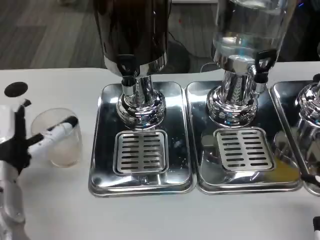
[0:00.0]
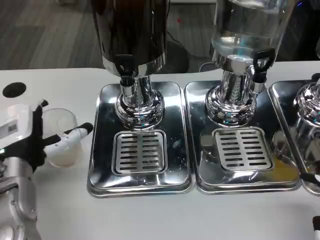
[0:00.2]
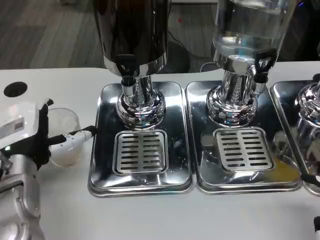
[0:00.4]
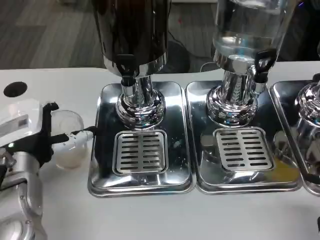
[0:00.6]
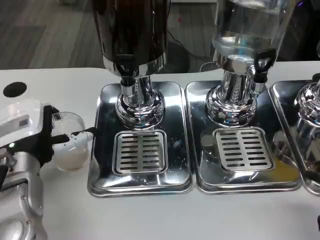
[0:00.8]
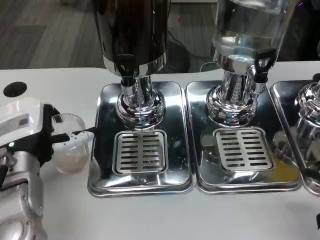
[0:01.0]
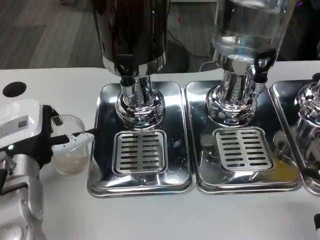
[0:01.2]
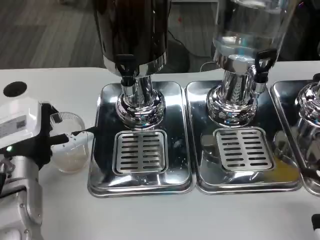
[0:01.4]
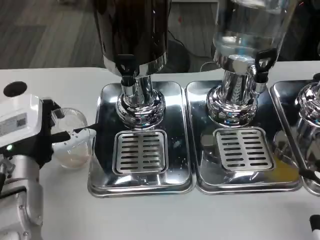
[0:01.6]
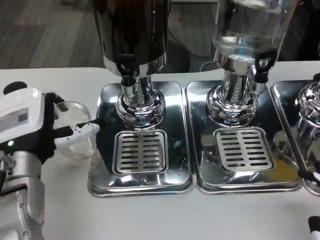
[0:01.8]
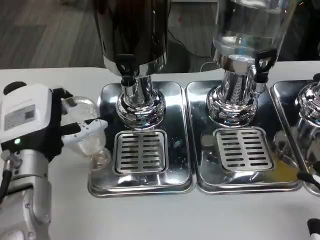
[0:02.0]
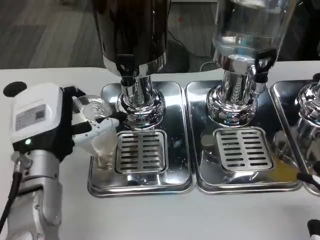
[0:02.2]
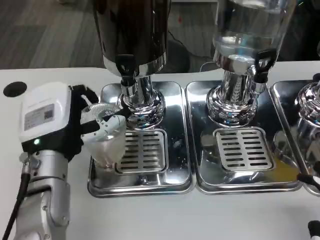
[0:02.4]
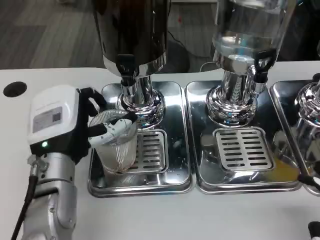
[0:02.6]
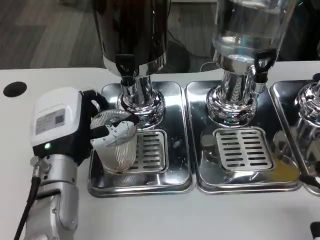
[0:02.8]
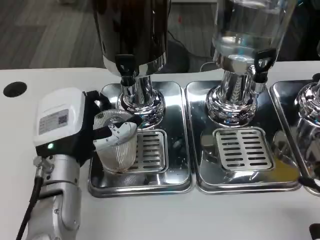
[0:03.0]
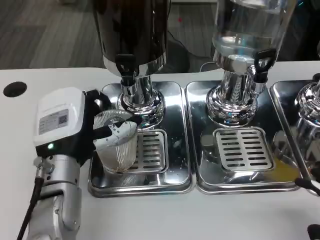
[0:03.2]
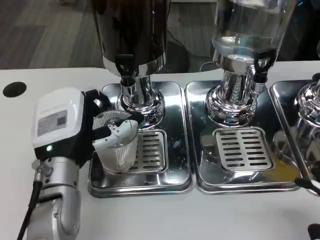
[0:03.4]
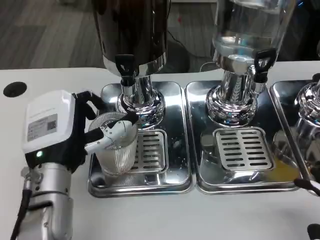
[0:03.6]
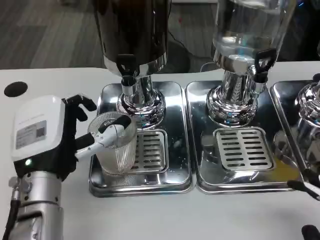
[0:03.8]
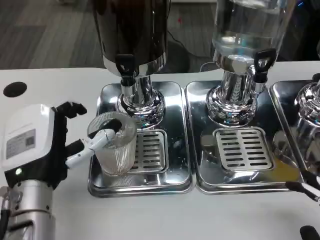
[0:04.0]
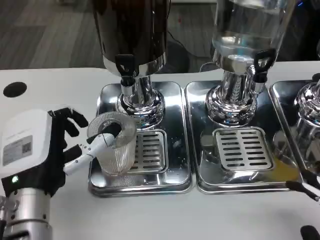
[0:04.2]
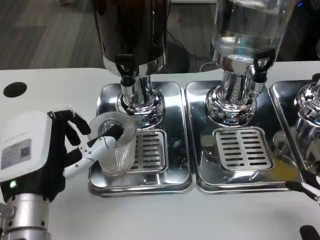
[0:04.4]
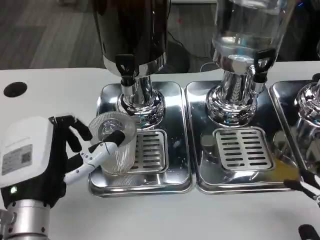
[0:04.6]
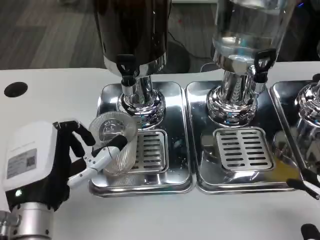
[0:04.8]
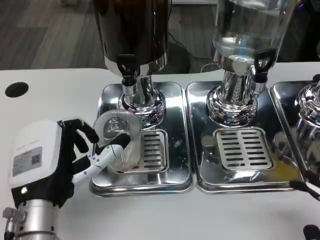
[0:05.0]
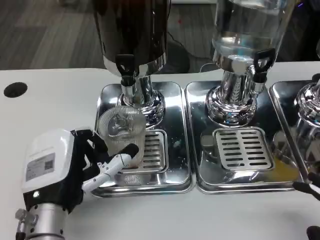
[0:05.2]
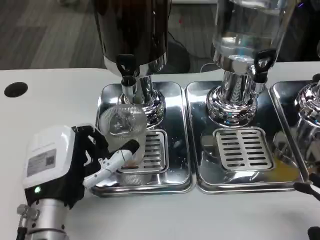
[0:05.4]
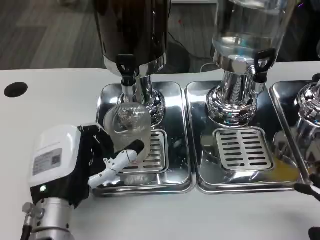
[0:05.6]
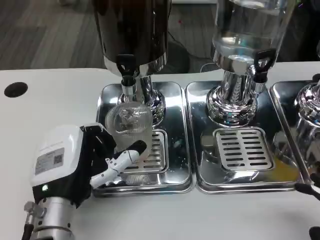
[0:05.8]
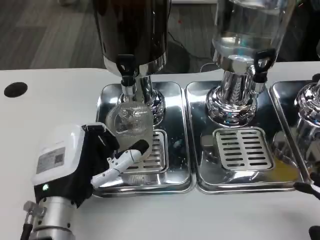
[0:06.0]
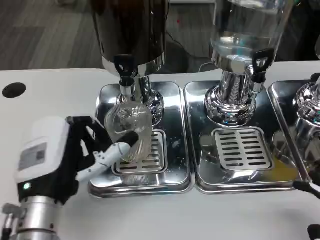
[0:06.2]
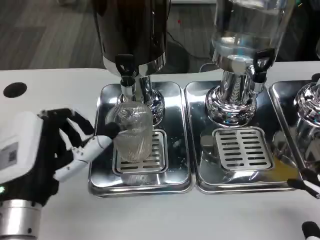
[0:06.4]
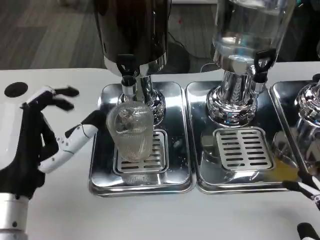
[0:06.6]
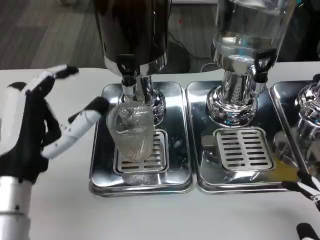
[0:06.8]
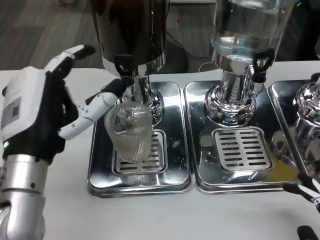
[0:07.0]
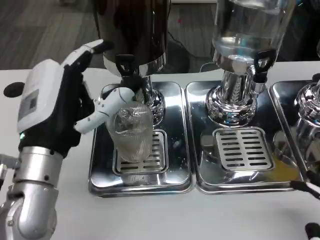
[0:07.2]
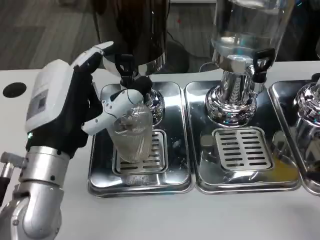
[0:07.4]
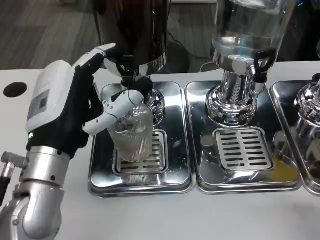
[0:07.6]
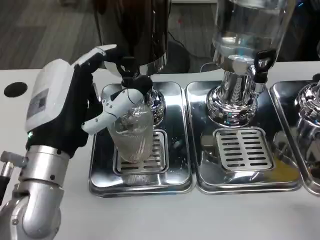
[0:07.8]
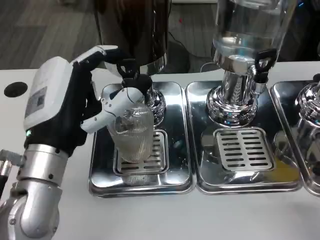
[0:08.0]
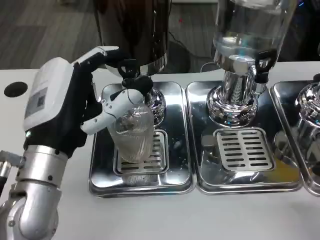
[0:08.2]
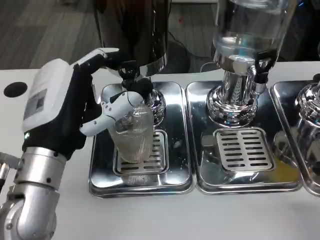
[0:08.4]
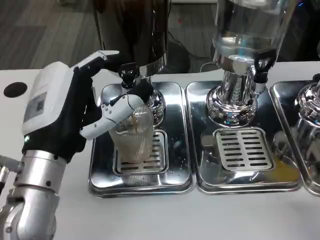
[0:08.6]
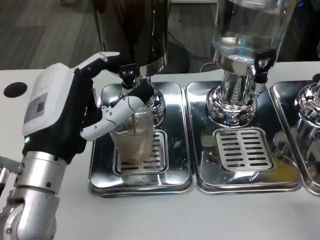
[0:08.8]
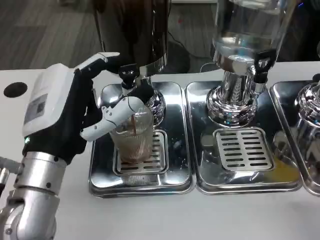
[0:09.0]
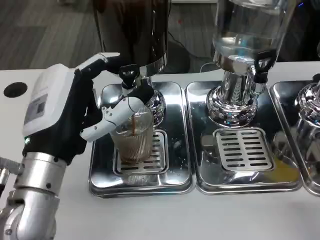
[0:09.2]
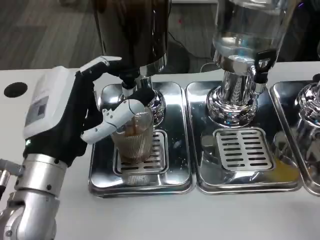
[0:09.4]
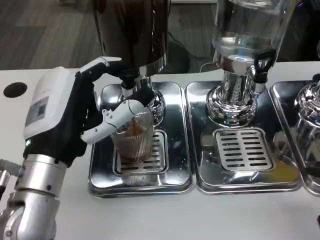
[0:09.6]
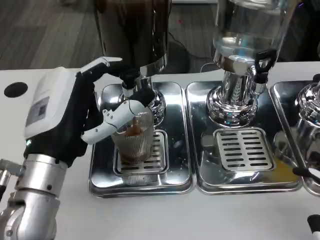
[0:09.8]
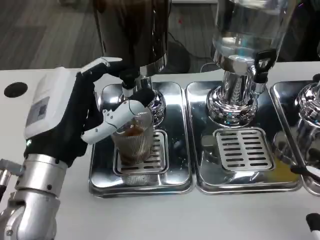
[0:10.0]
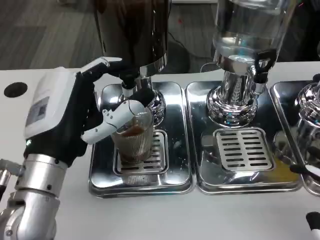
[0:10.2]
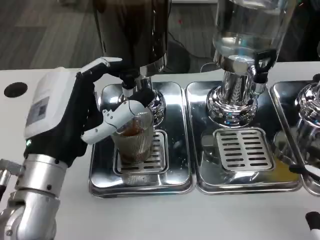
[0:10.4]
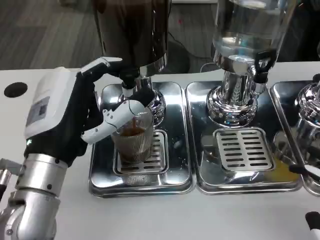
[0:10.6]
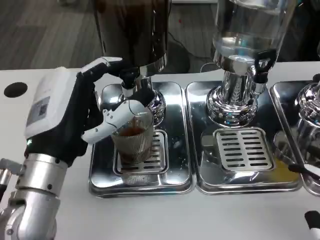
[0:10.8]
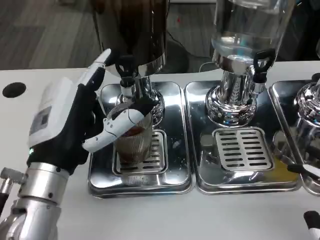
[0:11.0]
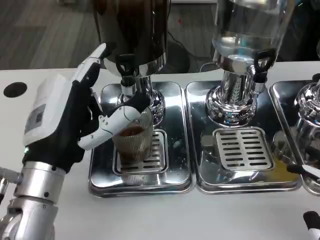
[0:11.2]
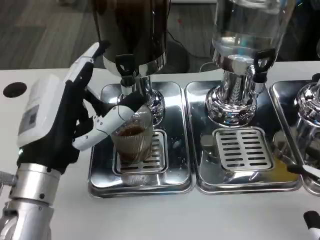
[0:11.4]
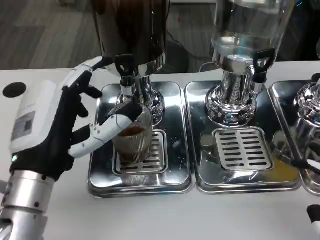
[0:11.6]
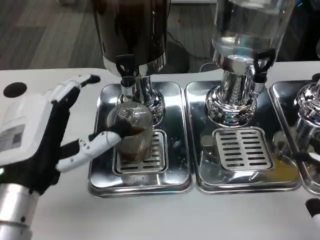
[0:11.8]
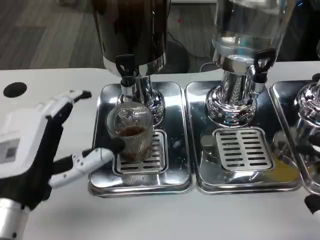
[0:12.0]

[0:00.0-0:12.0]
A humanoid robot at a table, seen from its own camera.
Task of the whole recording: Grasp the cup under the faucet to collect the drink, then remove the cup.
0:00.0 to 0:01.6: There are only small adjustments of the hands.
0:03.0 to 0:04.4: The left hand goes roughly 5 cm backward.
0:04.4 to 0:06.0: There are only small adjustments of the hands.
0:06.0 to 0:07.6: The left hand travels upward by approximately 5 cm.
0:07.6 to 0:09.0: Both hands stay about where they are.
0:10.4 to 0:12.0: The left hand shifts by about 5 cm.

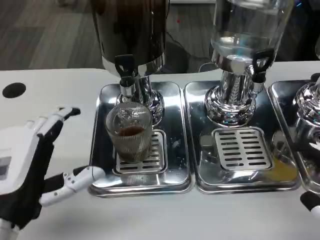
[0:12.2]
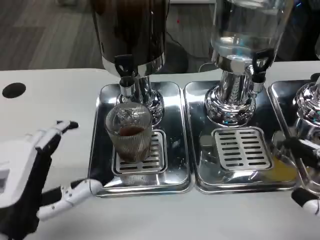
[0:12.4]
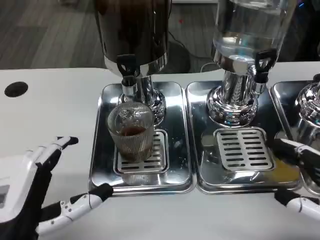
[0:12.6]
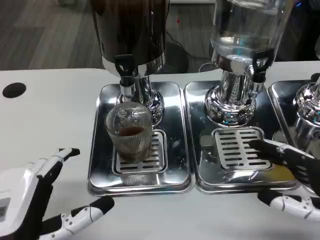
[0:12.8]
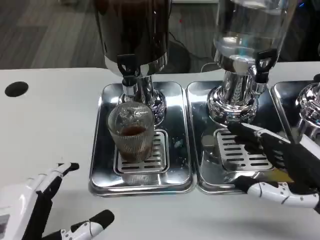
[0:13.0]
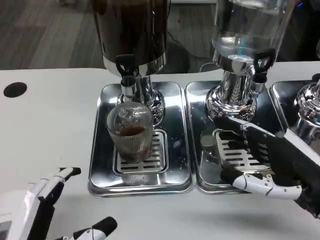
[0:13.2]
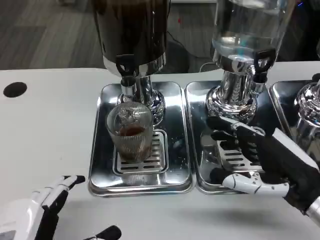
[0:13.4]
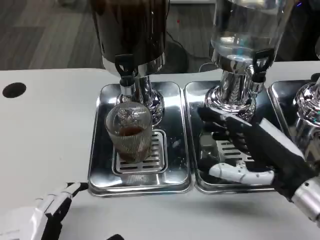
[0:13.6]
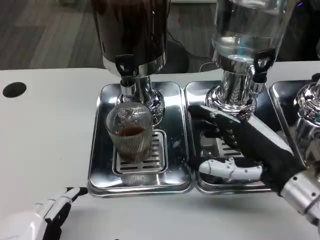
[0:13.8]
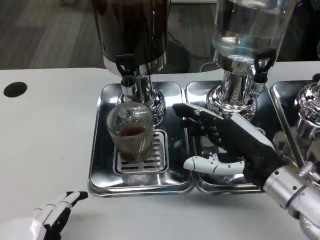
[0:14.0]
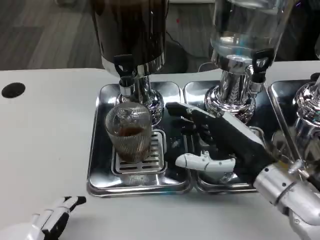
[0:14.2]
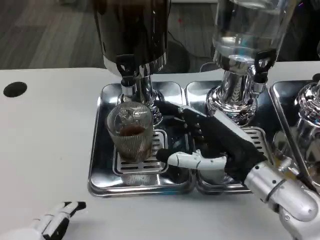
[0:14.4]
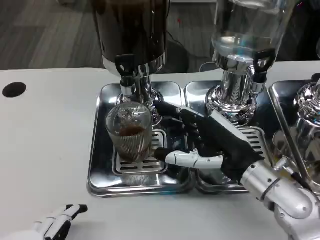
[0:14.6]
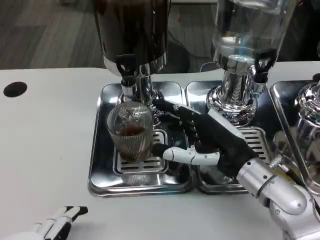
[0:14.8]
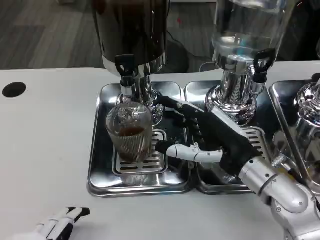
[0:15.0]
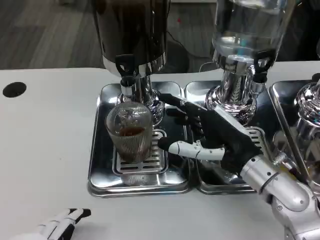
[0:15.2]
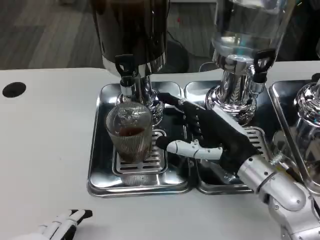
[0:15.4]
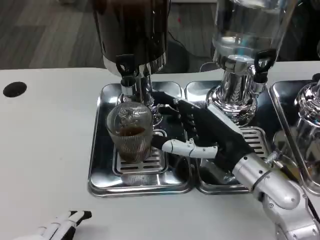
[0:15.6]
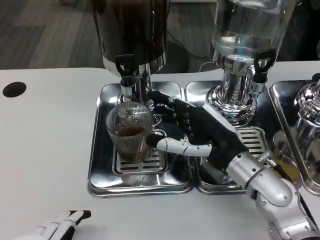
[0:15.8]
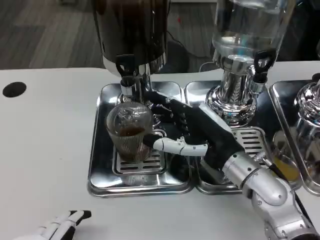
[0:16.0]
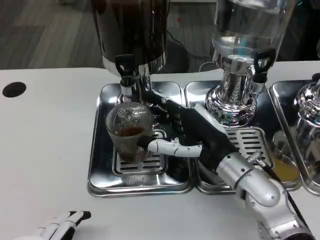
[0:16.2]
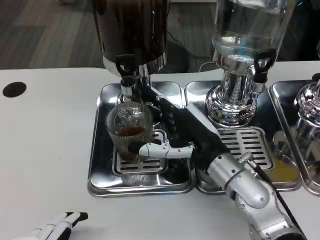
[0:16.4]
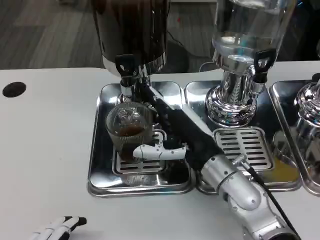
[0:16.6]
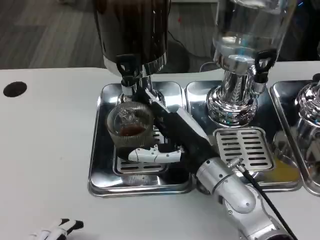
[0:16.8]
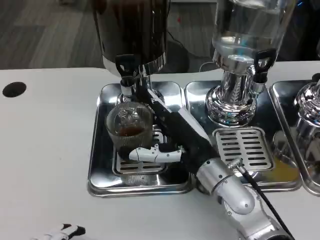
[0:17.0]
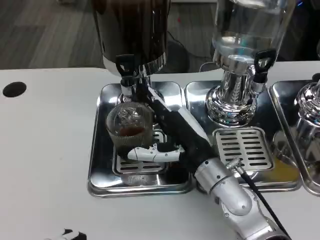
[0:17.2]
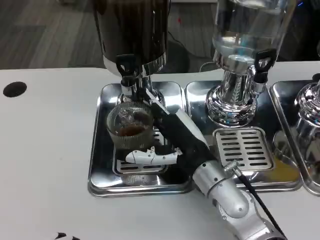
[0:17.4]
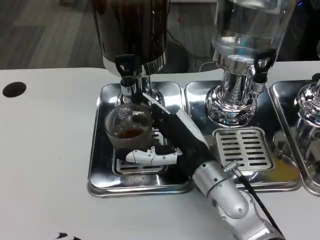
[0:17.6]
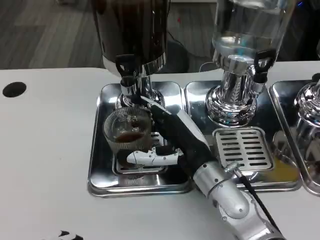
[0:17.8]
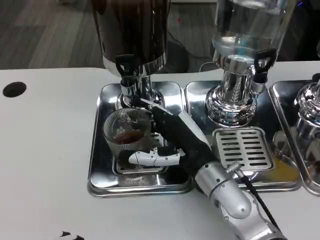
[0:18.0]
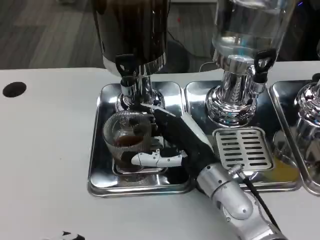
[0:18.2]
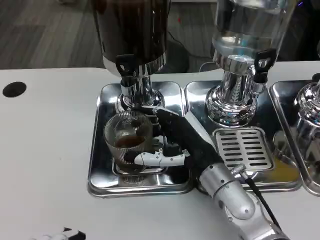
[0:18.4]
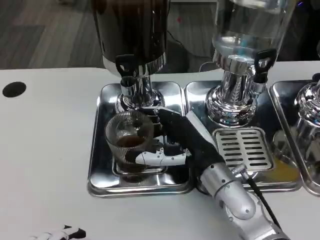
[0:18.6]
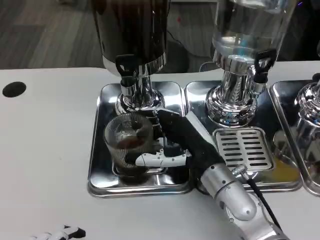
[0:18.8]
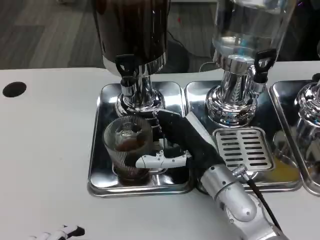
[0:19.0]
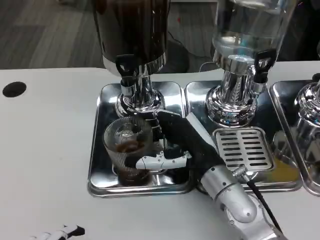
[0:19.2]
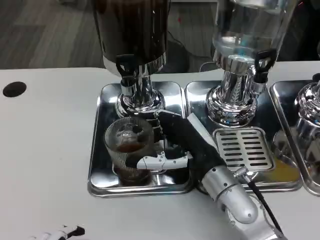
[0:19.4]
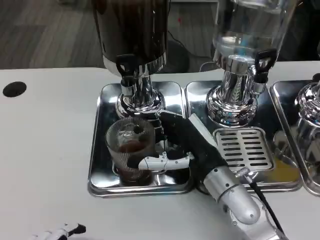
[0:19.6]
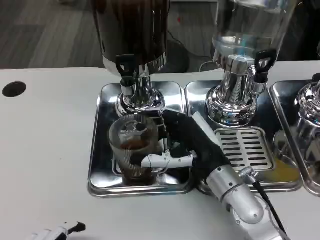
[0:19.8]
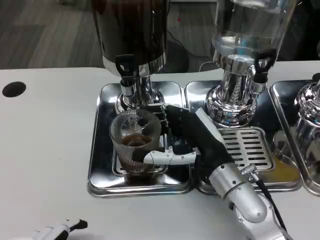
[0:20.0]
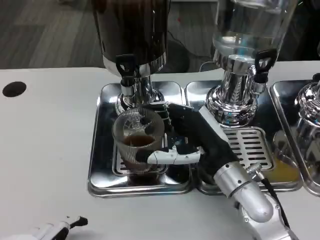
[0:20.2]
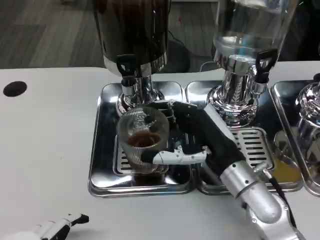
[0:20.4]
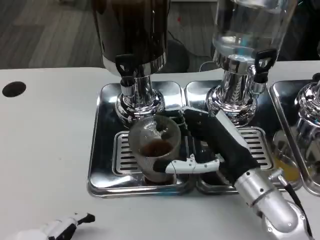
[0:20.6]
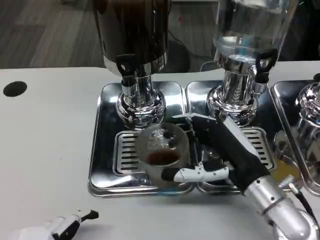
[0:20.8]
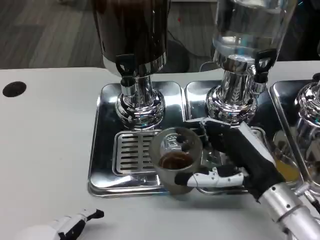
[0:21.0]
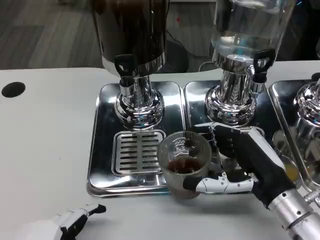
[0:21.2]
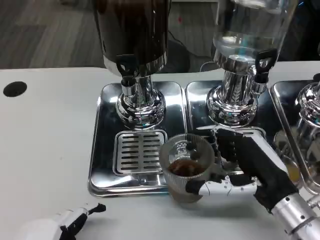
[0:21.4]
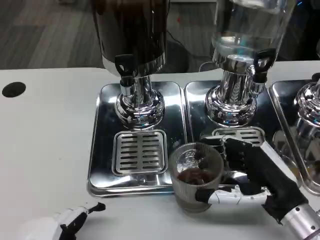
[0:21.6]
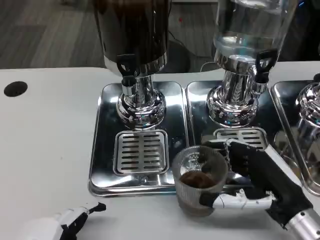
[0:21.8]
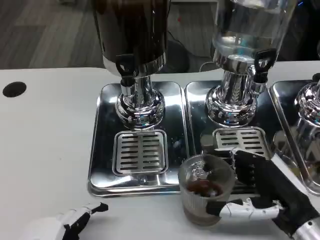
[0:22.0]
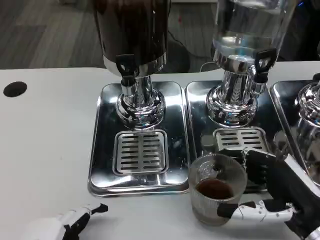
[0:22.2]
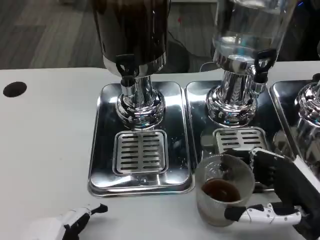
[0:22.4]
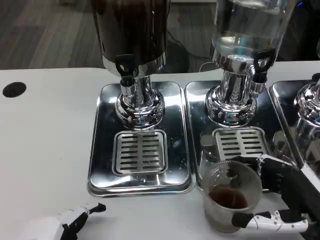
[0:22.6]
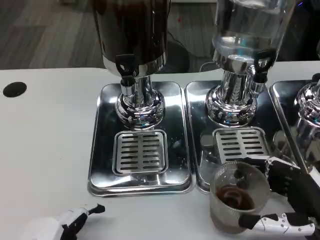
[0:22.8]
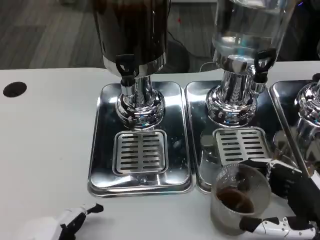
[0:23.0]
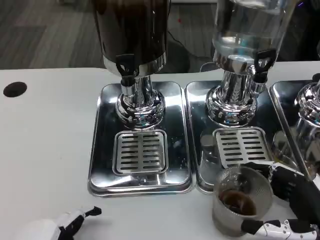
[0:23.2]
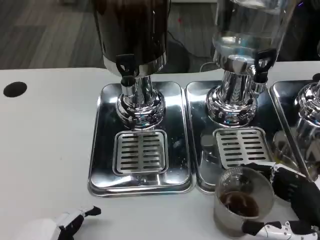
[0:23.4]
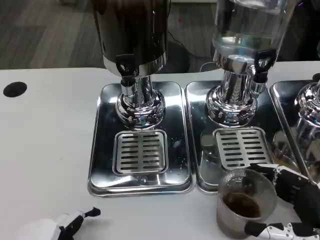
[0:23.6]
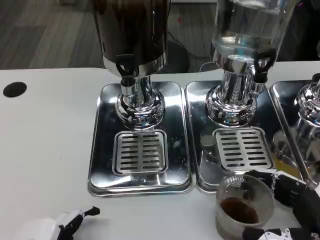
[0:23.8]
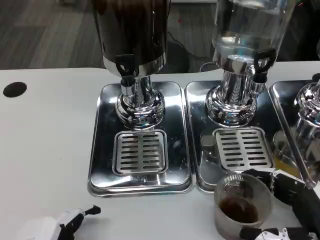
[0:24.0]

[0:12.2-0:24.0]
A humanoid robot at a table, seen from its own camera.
Task of the whole recording: Grasp the cup under the faucet to collect the drink, then remove the cup.
0:12.2 to 0:13.6: The left hand shifts about 10 cm backward. Meanwhile the right hand heads forward and to the left, covering roughly 15 cm.
0:13.6 to 0:15.2: The right hand travels forward and to the left by about 10 cm.
0:15.2 to 0:16.6: The right hand travels to the left by about 5 cm.
0:16.6 to 0:18.2: There are only small adjustments of the hands.
0:18.2 to 0:19.6: Neither hand changes place.
0:19.6 to 0:21.0: The right hand travels to the right by approximately 10 cm.
0:21.0 to 0:22.6: The right hand moves to the right and backward, roughly 10 cm.
0:22.6 to 0:24.0: The hands move only a little.
